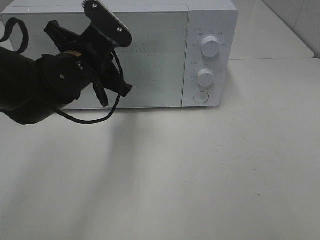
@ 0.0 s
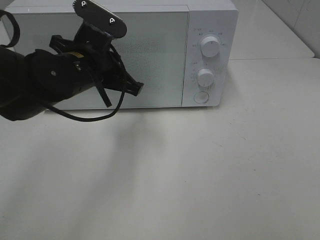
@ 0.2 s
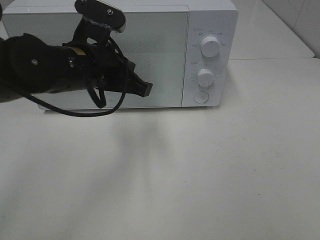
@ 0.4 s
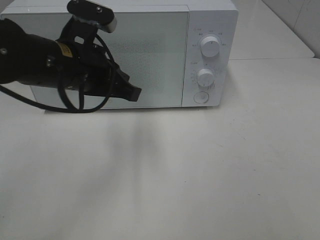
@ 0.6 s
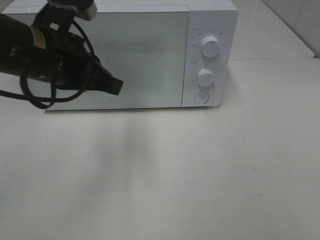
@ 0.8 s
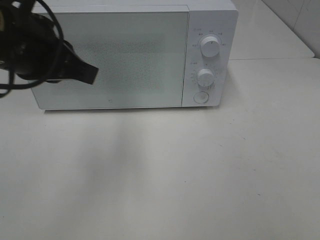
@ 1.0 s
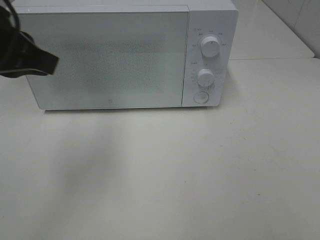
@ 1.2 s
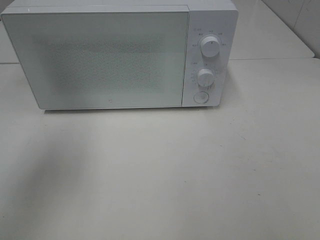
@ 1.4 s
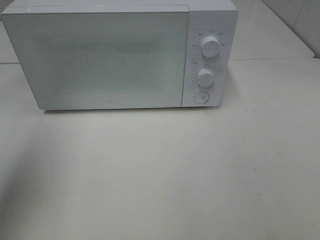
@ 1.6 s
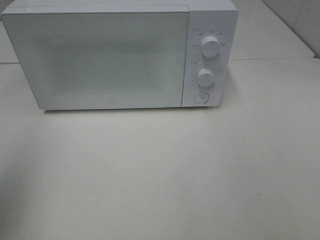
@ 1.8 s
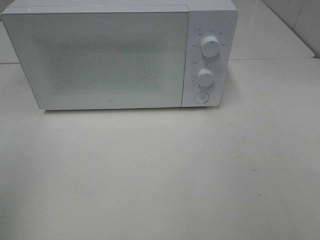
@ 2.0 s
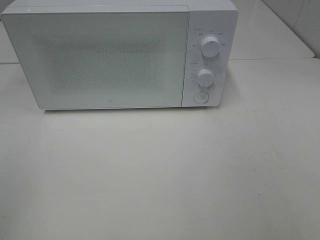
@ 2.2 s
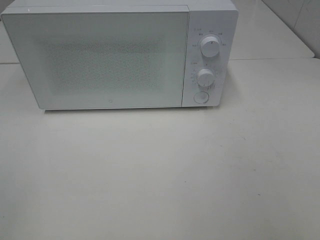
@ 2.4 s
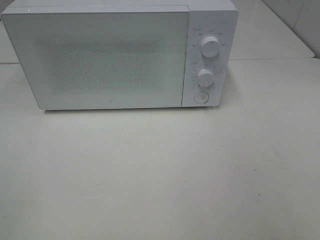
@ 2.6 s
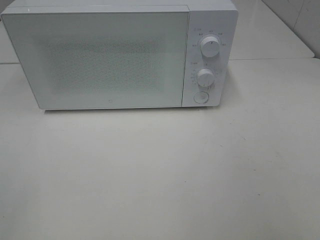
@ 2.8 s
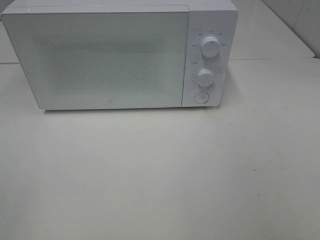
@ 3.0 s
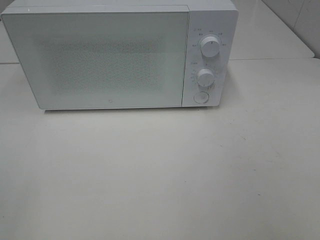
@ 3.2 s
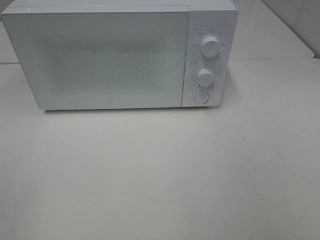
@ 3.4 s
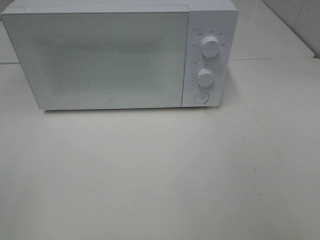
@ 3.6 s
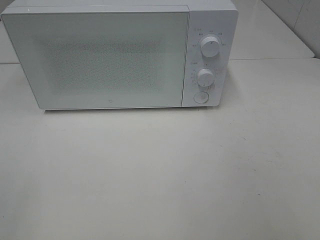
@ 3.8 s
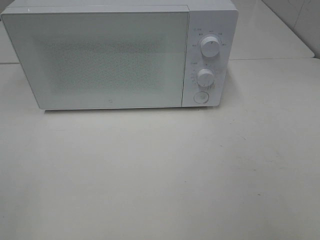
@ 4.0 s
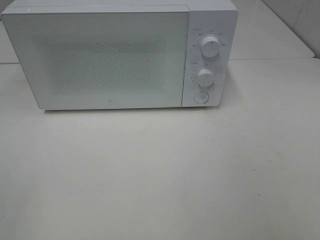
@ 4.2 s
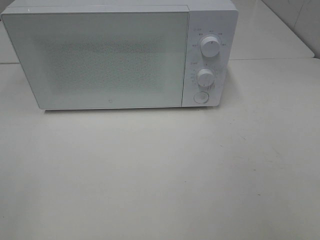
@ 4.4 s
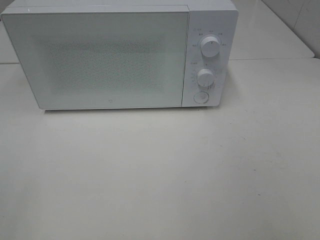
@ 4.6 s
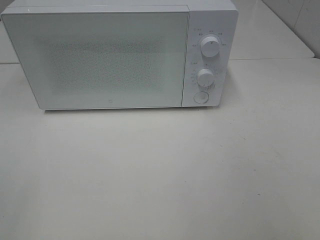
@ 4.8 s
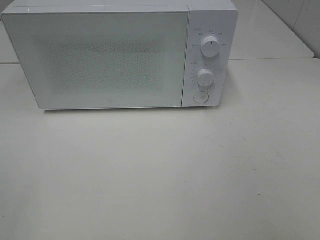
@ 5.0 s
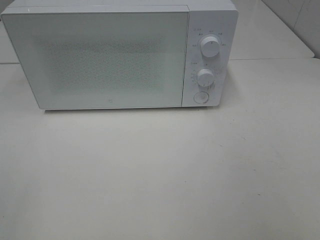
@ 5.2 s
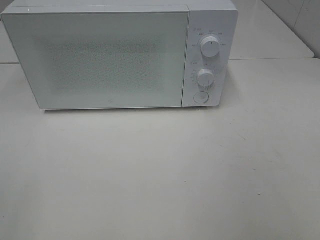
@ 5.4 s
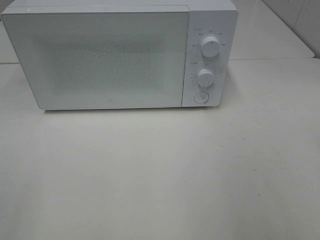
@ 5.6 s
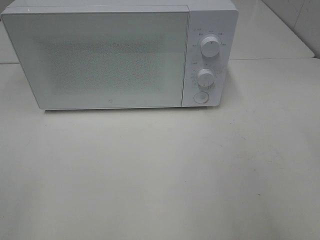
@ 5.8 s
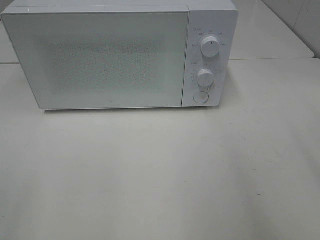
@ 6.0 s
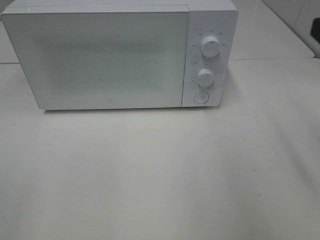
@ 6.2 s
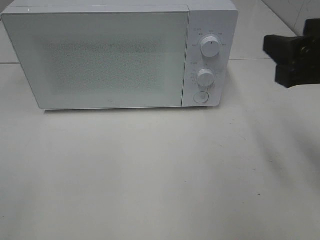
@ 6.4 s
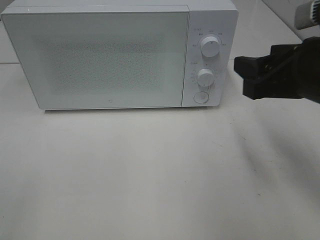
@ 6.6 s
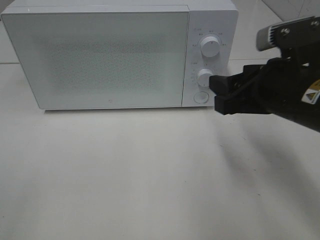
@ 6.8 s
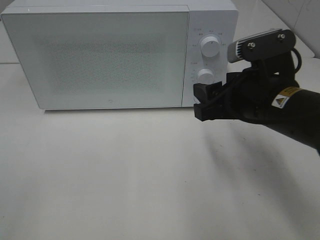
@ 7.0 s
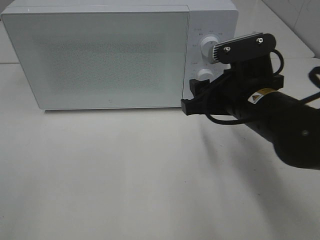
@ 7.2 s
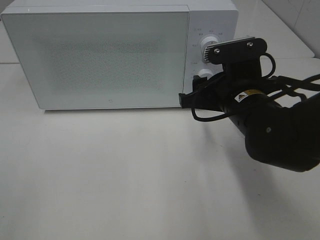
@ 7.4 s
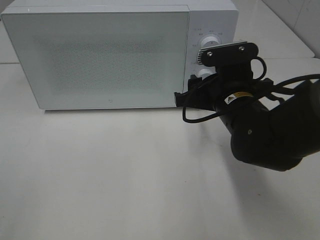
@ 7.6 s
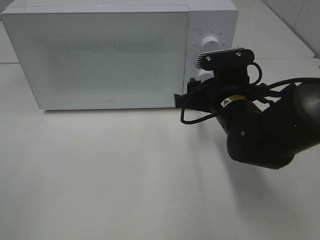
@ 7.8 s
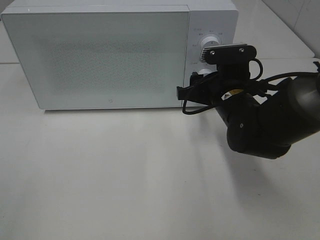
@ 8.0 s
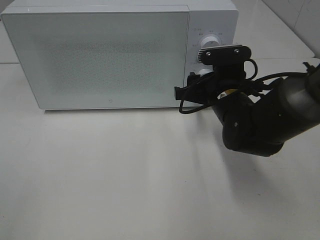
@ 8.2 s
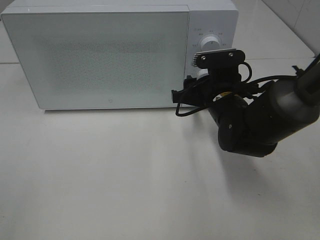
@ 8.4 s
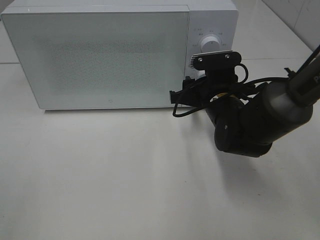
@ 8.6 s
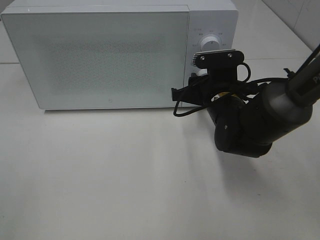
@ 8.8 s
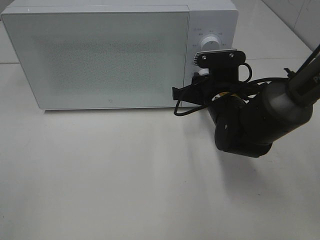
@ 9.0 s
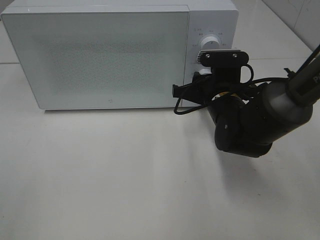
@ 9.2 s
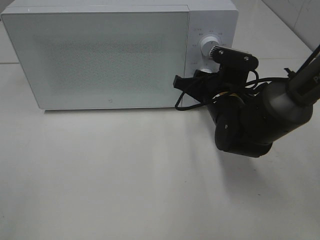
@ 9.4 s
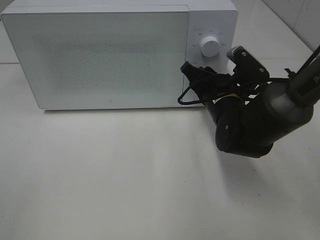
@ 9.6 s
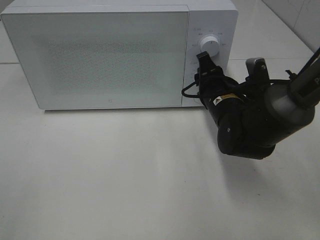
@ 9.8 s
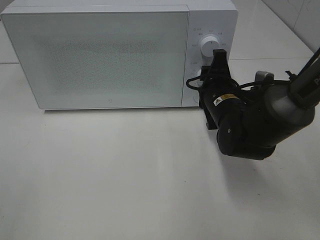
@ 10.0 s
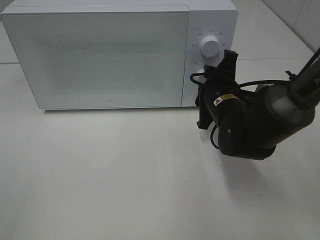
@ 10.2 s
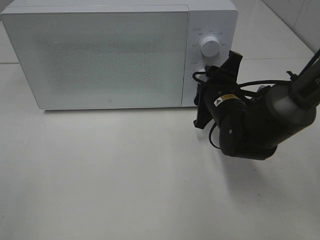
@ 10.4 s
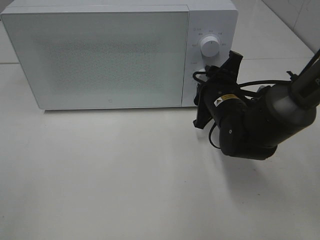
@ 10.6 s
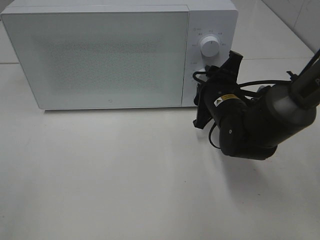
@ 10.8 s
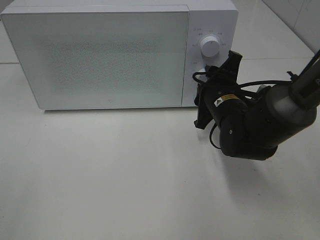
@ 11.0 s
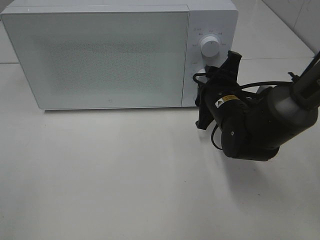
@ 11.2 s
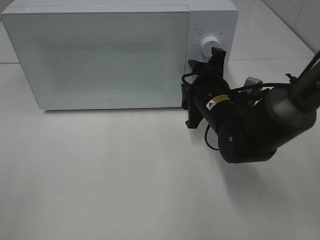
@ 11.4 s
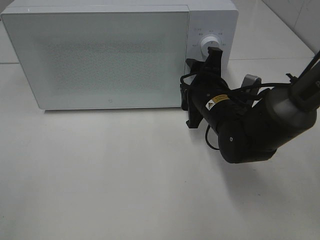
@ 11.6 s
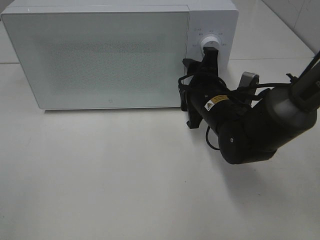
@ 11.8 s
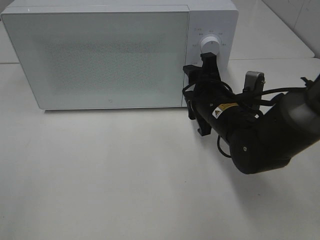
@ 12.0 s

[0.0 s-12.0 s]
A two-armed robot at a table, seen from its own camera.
Task of the whole recording: Heat Sandwich.
0.0 to 1.6 s: The left gripper shifts roughly 30 cm to the left, upward and backward, and opens up.
1.6 to 3.0 s: The left gripper moves backward, some 20 cm.
3.0 to 4.4 s: The two grippers keep their place.
6.0 to 7.6 s: The right gripper heads downward, forward and to the left, covering some 25 cm.
7.6 to 9.0 s: The right gripper changes place by some 5 cm.

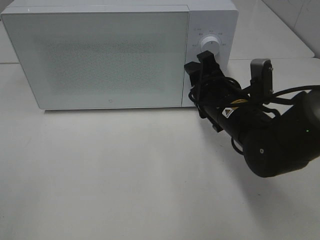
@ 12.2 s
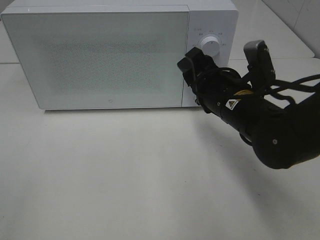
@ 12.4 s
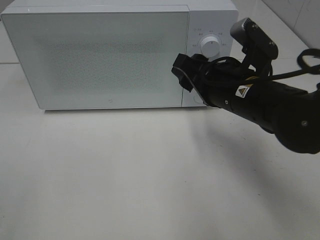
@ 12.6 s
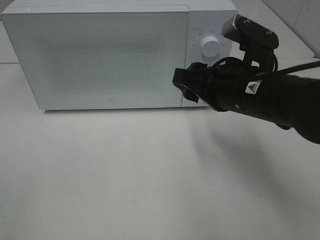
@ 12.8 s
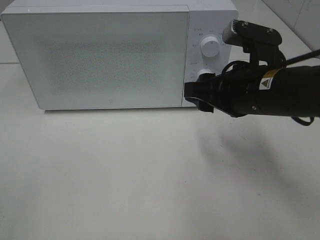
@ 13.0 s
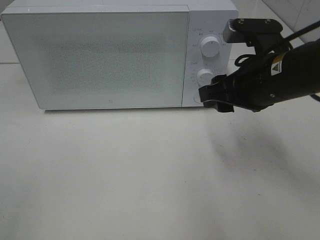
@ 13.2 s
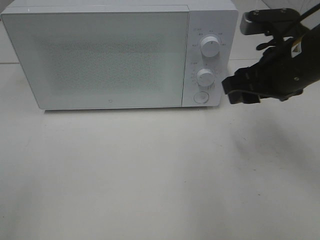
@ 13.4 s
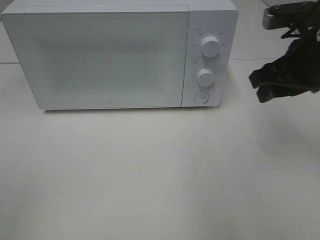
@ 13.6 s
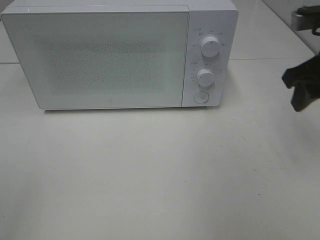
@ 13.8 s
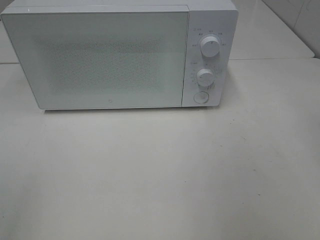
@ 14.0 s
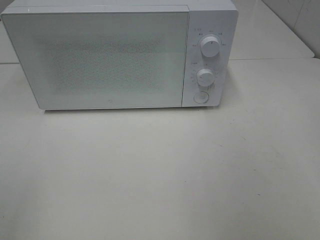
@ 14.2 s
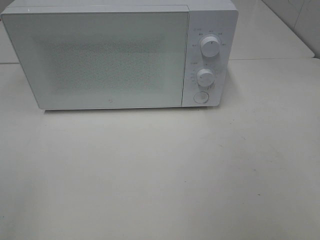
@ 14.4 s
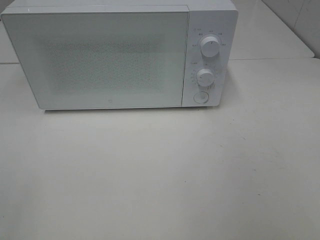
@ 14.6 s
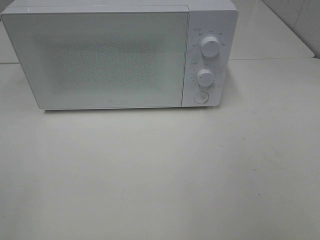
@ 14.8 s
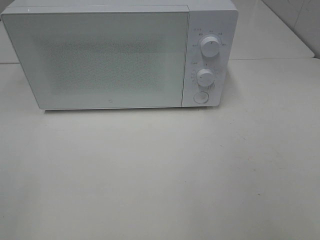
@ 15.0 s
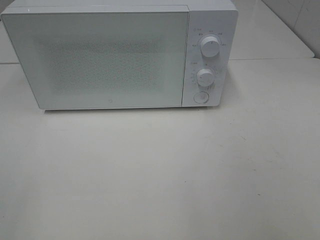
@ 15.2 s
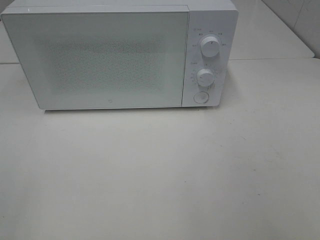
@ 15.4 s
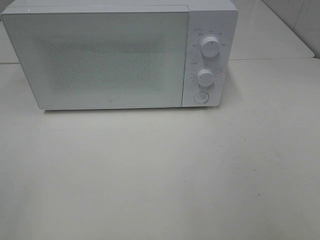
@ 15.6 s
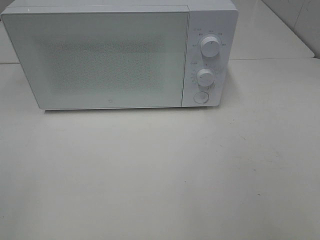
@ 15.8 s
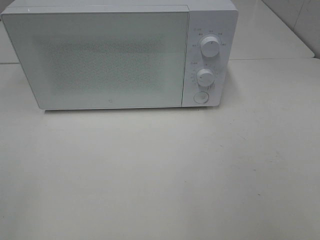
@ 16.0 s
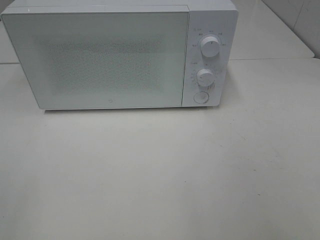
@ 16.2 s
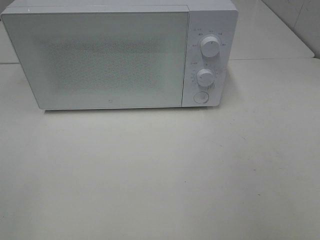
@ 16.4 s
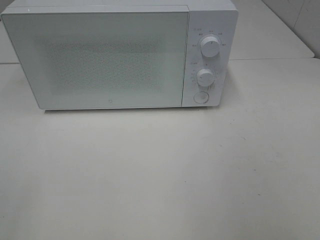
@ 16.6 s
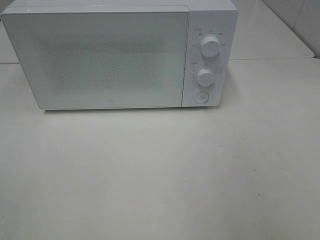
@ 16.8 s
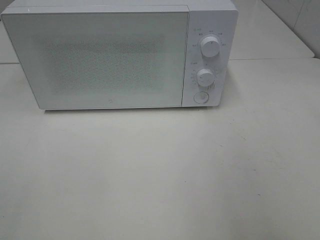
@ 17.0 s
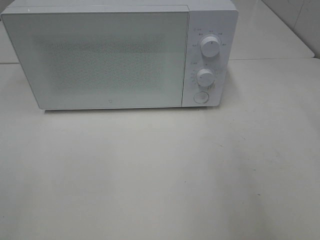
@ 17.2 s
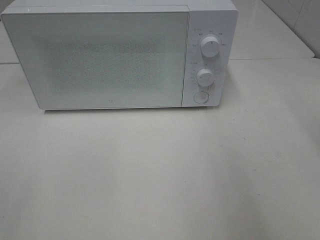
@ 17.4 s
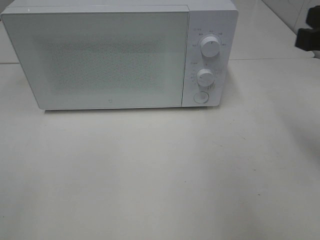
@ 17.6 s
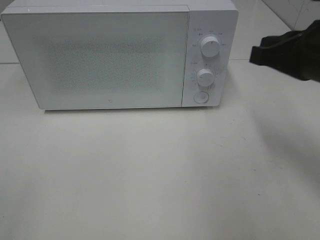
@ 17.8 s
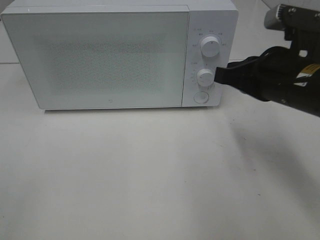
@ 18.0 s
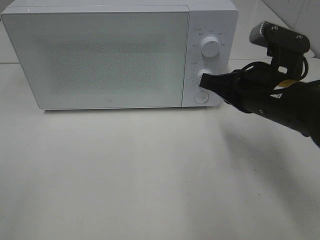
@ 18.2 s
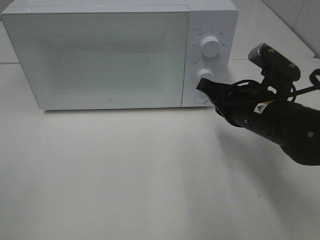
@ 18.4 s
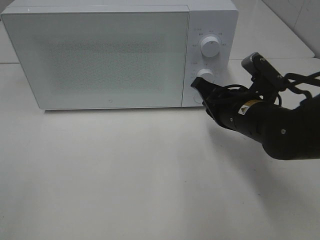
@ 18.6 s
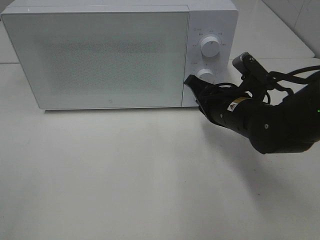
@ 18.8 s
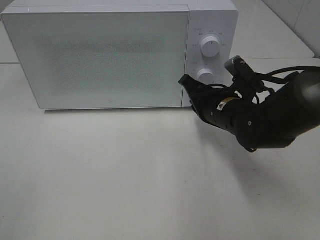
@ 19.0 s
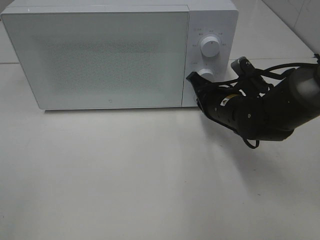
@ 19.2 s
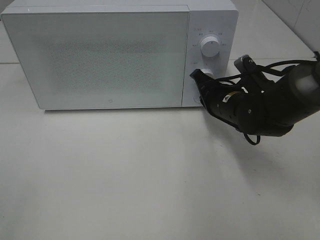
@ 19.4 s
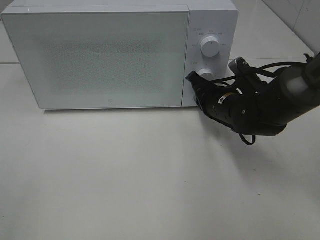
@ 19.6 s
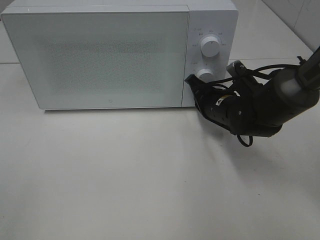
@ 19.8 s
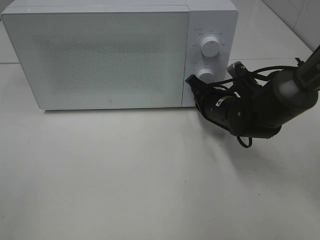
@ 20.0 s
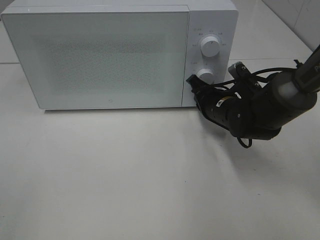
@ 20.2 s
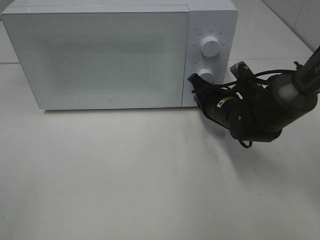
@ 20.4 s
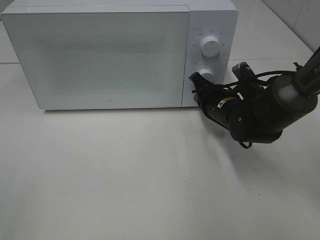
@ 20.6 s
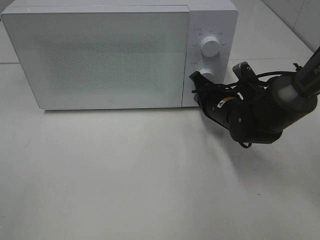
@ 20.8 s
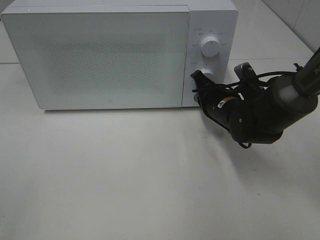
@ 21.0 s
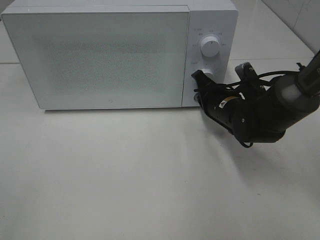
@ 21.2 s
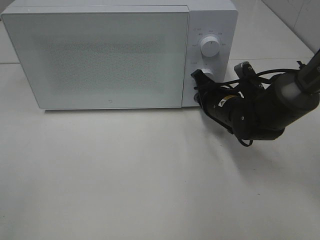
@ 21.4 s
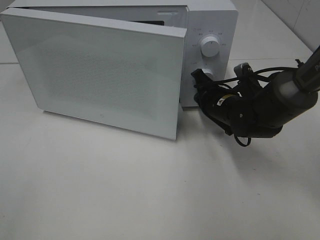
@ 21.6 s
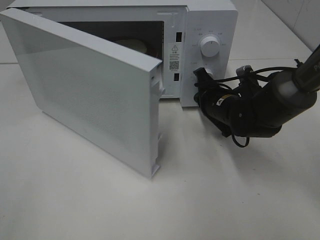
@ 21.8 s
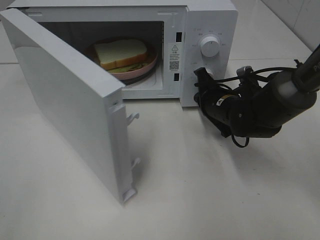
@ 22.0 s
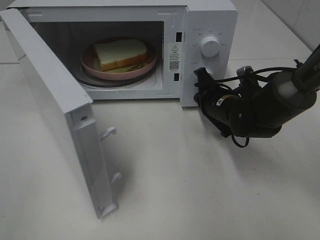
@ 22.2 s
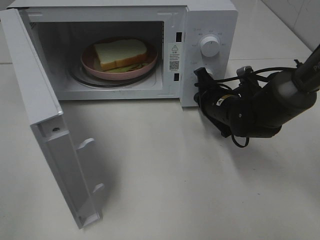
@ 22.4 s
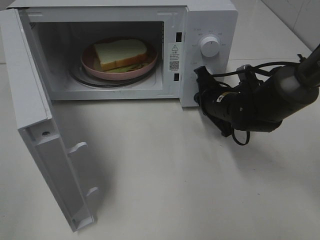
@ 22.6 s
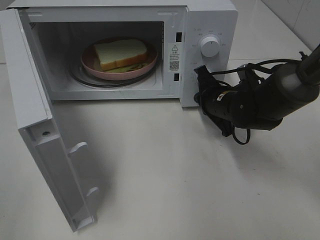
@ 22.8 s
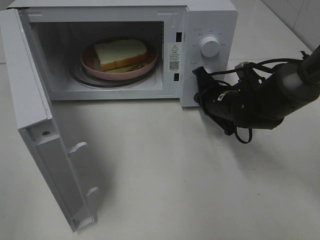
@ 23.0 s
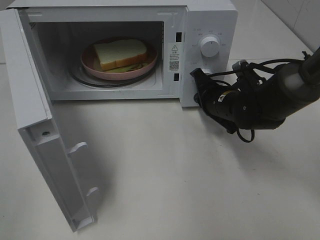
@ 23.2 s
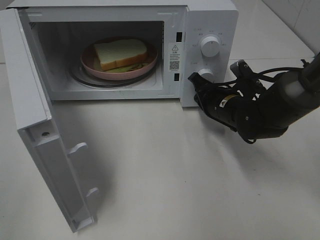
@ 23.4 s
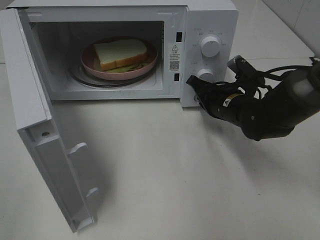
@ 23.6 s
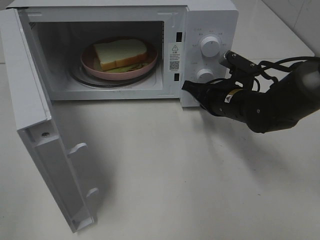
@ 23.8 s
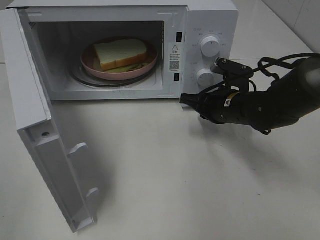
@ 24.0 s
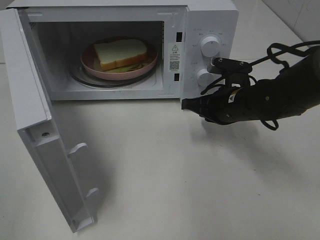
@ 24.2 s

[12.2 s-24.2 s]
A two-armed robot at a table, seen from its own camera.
Task of the whole recording: Heat Sandwich.
12.2 to 13.8 s: The right gripper shifts some 20 cm to the right and upward.
13.8 to 15.2 s: The right gripper shifts approximately 30 cm backward.
16.6 to 18.2 s: The right gripper is displaced forward, downward and to the left by about 30 cm, and closes.
18.2 to 19.8 s: The right gripper travels forward and downward by approximately 15 cm.
19.8 to 21.2 s: The grippers move only a little.
